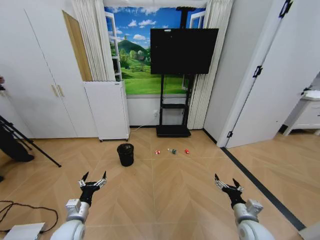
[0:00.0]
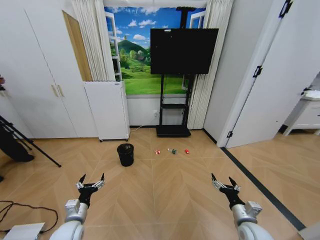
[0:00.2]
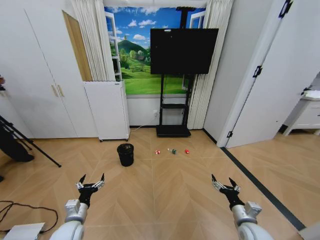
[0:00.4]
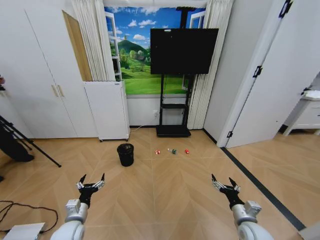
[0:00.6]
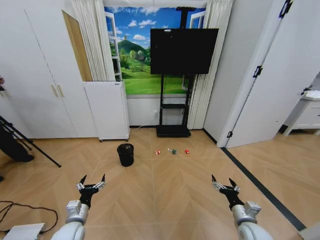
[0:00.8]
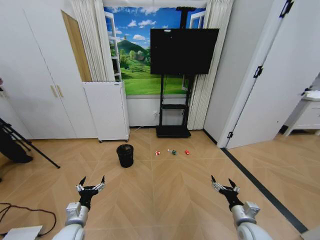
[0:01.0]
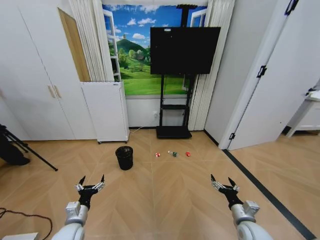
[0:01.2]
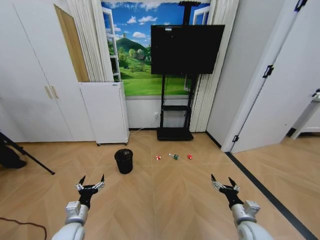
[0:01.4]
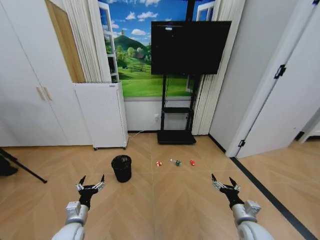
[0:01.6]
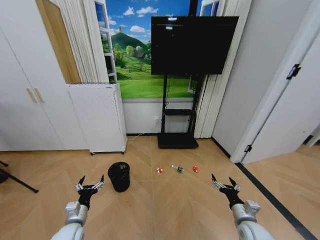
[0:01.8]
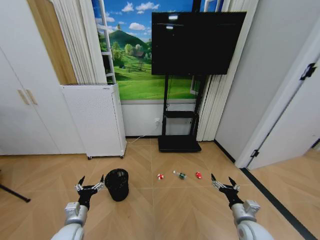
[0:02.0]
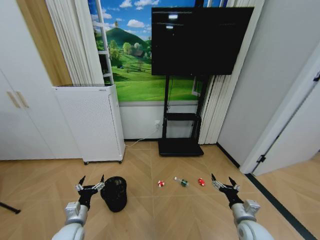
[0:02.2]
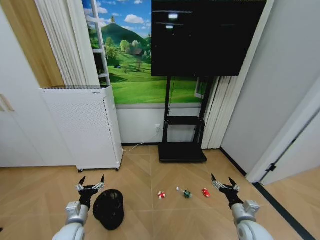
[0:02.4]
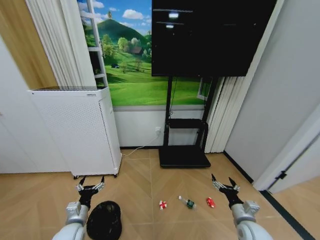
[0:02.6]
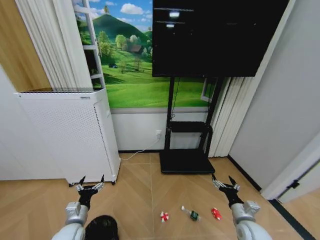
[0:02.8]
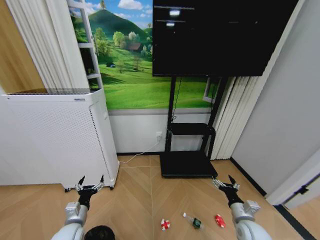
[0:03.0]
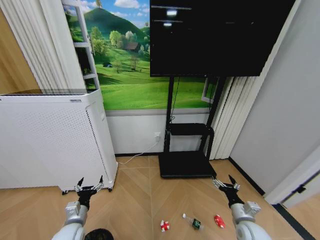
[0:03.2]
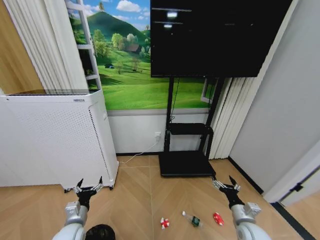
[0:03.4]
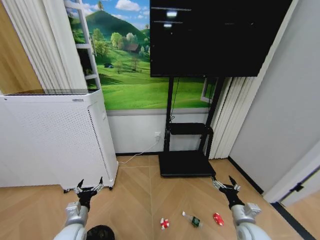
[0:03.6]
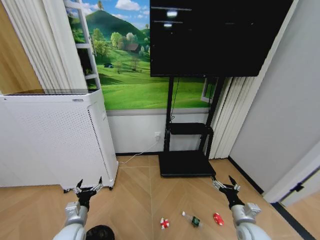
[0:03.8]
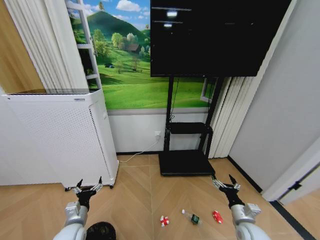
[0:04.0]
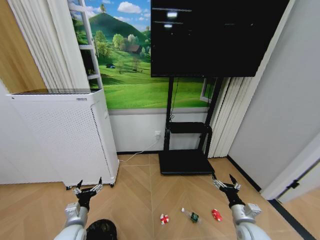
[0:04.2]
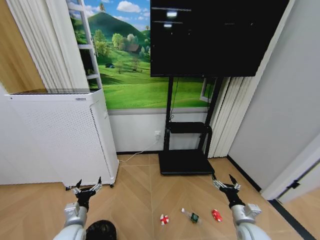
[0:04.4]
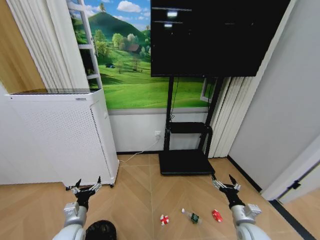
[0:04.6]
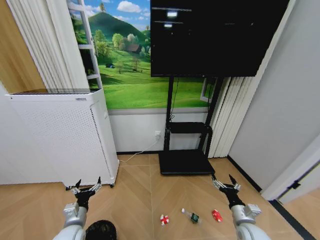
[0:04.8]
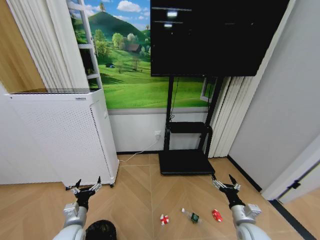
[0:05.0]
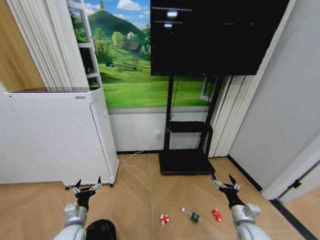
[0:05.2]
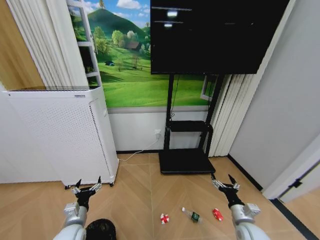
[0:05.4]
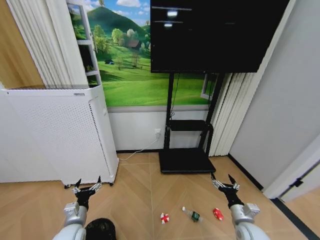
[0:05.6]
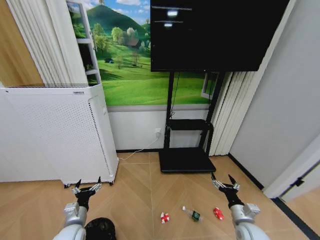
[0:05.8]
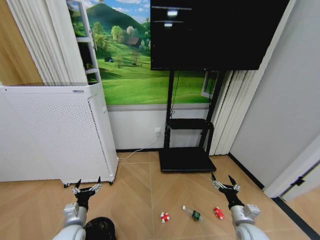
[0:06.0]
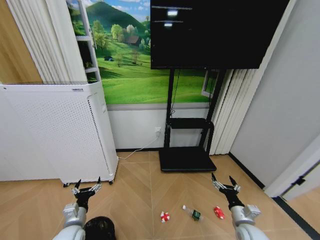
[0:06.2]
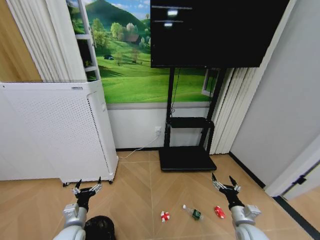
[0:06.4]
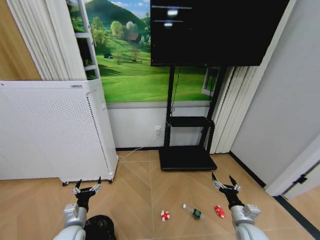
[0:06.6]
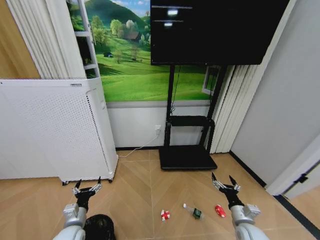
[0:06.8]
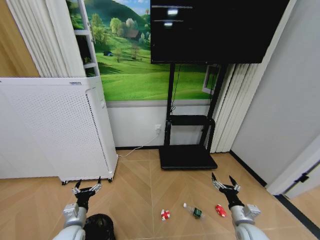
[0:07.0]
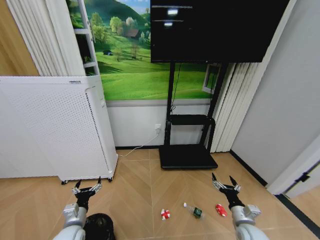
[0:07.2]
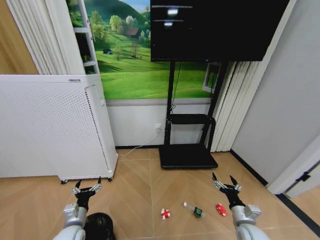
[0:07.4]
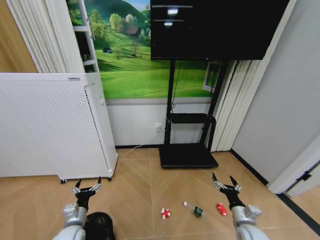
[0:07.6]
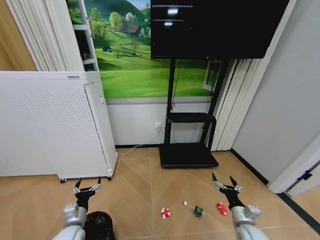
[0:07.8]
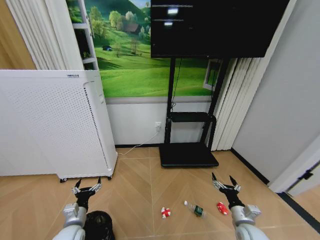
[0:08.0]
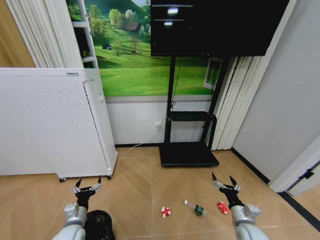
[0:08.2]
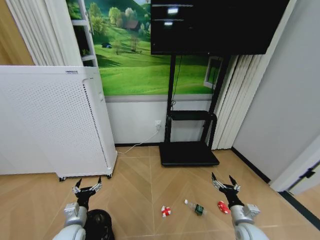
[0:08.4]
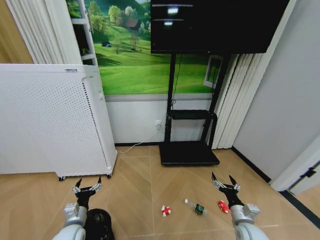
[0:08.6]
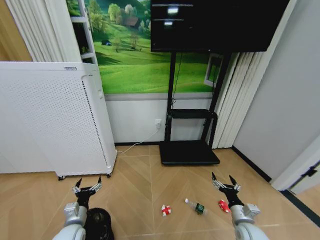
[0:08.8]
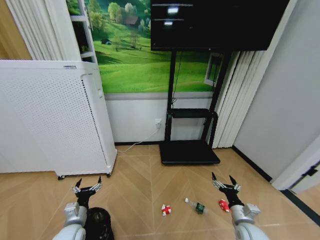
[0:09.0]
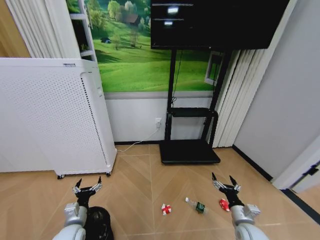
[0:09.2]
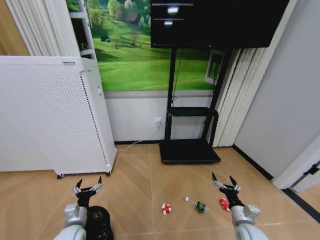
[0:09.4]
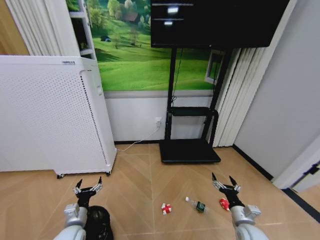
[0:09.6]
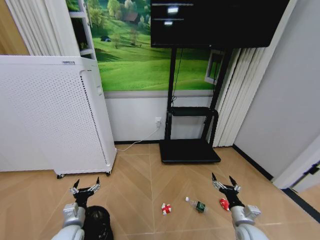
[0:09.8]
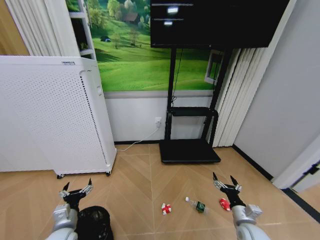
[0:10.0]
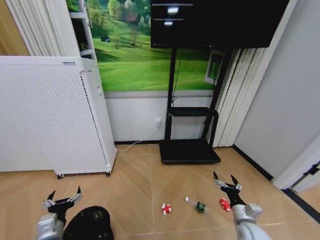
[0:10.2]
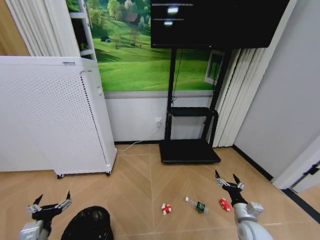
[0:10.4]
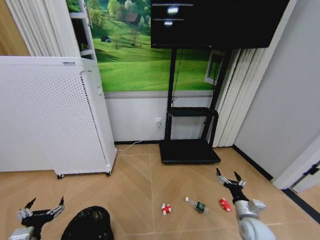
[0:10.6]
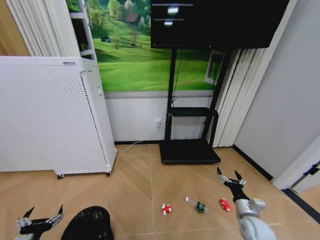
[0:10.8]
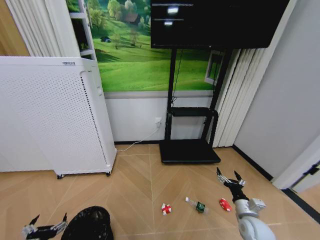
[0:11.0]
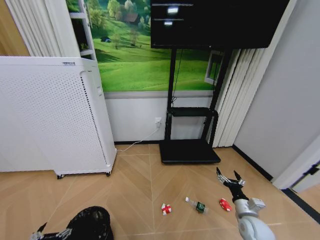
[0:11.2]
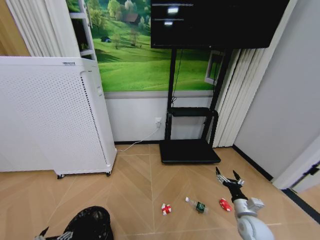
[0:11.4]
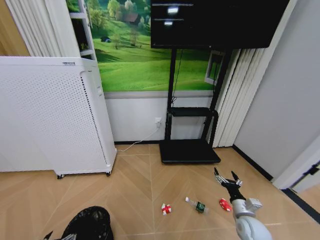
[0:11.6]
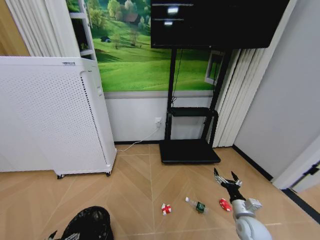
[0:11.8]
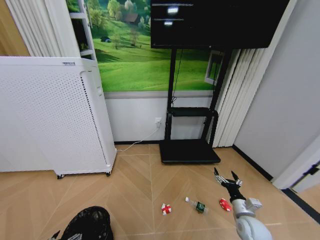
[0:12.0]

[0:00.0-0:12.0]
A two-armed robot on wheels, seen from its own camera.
Task of the whole recording: Pick up the trash bin and place the garbage on the floor into it.
0:03.0 to 0:04.4: The grippers stay close to where they were, moving slightly.
0:04.4 to 0:09.0: Both grippers stay about where they are.
0:09.0 to 0:10.4: The left gripper is displaced backward and upward by roughly 10 cm.
0:10.4 to 0:12.0: The left gripper moves downward, some 10 cm.

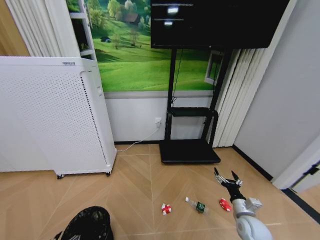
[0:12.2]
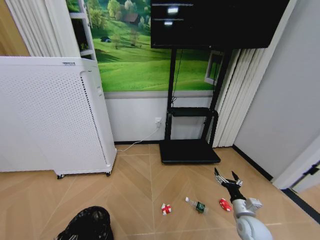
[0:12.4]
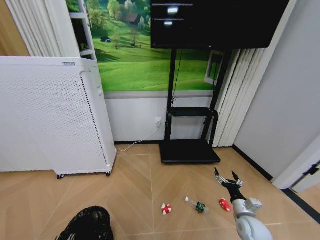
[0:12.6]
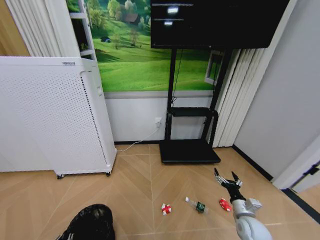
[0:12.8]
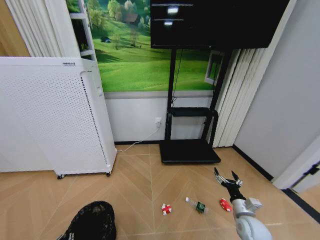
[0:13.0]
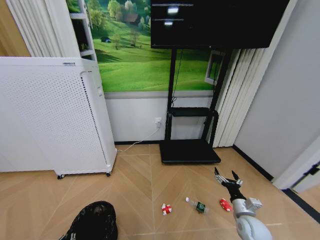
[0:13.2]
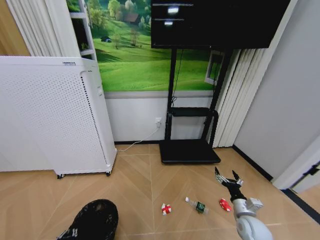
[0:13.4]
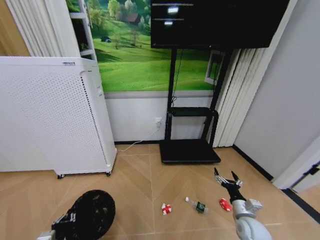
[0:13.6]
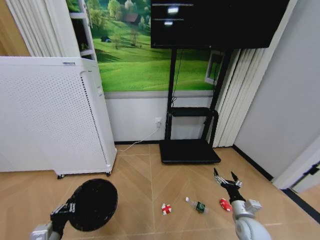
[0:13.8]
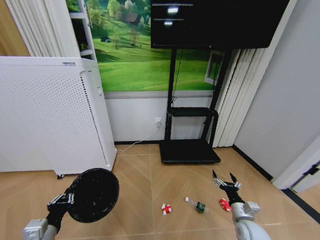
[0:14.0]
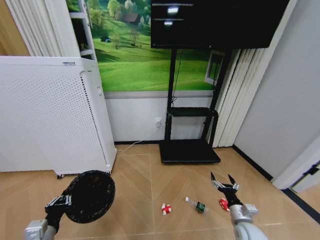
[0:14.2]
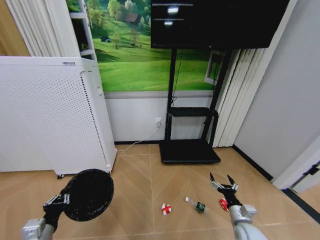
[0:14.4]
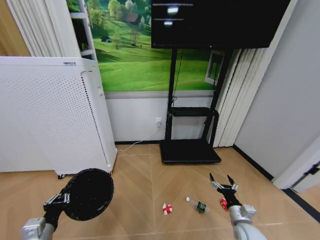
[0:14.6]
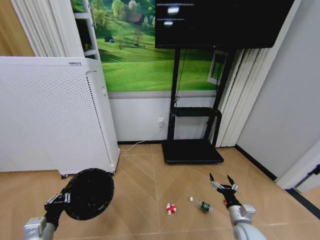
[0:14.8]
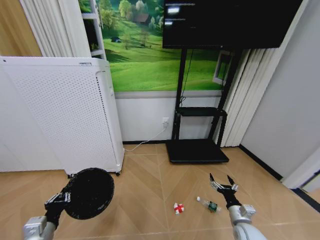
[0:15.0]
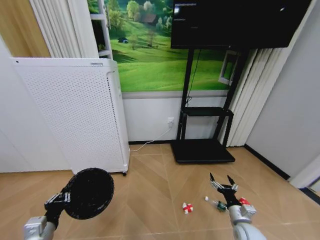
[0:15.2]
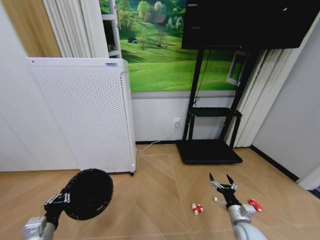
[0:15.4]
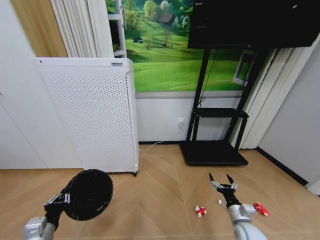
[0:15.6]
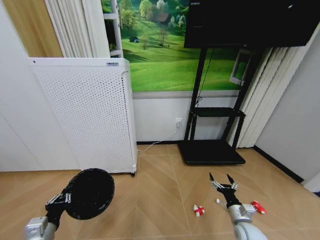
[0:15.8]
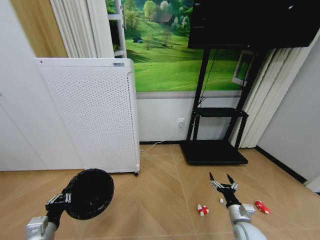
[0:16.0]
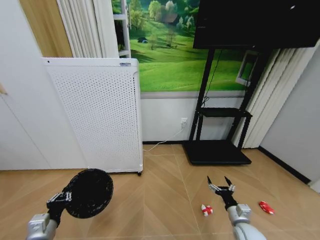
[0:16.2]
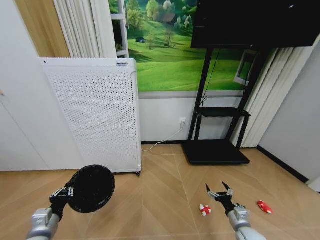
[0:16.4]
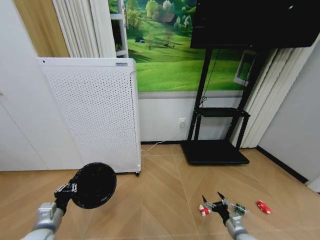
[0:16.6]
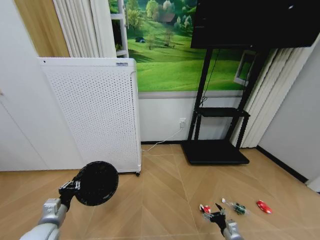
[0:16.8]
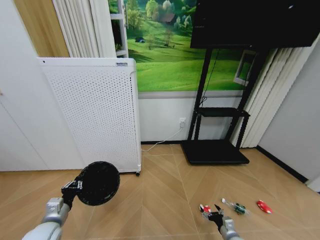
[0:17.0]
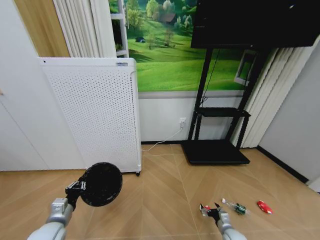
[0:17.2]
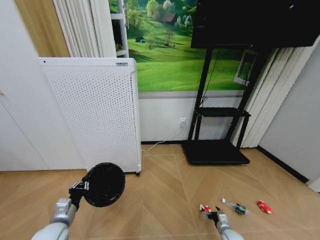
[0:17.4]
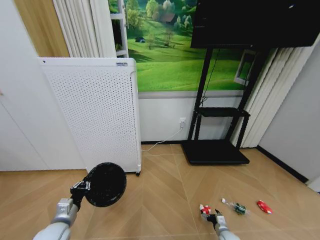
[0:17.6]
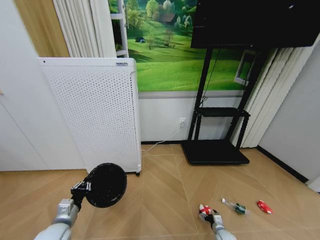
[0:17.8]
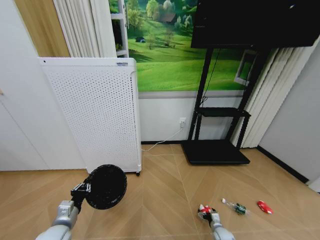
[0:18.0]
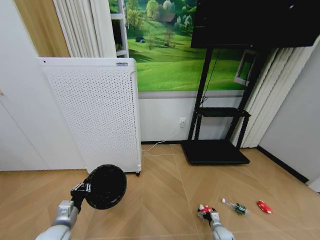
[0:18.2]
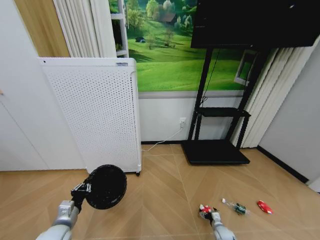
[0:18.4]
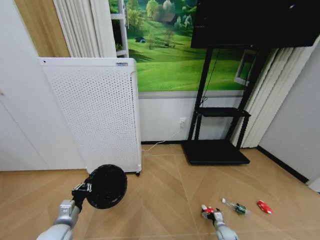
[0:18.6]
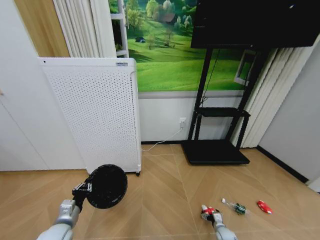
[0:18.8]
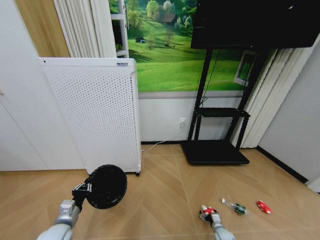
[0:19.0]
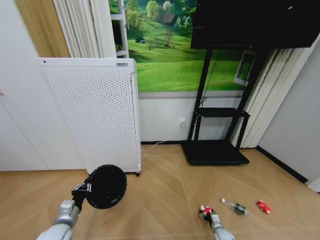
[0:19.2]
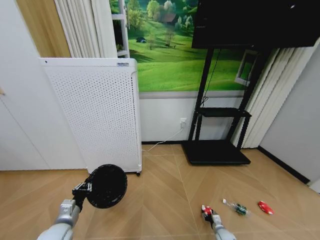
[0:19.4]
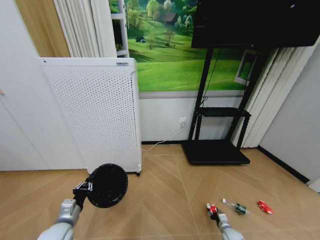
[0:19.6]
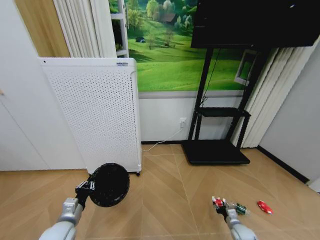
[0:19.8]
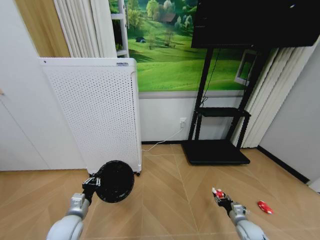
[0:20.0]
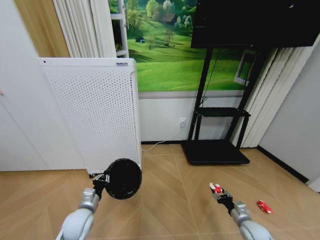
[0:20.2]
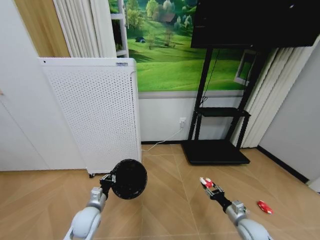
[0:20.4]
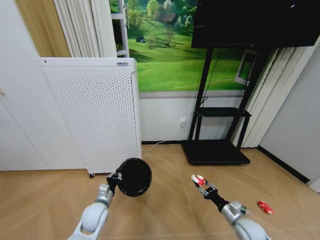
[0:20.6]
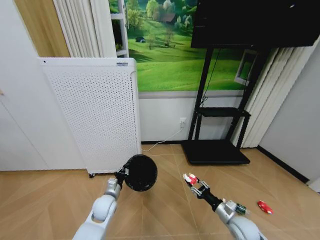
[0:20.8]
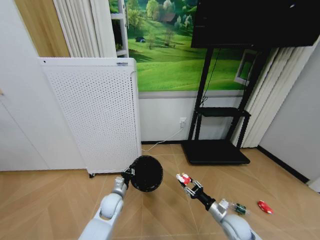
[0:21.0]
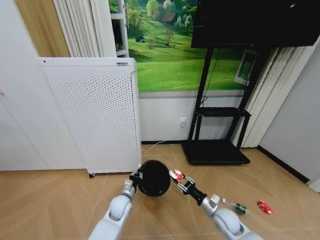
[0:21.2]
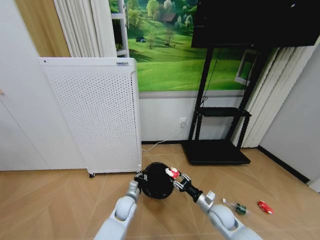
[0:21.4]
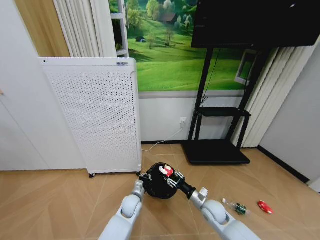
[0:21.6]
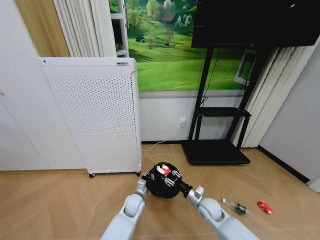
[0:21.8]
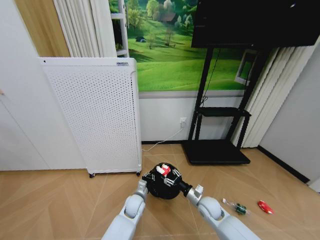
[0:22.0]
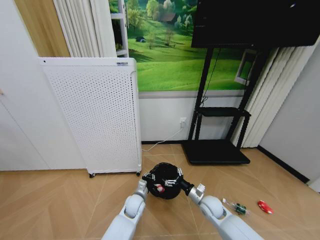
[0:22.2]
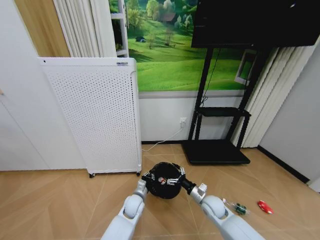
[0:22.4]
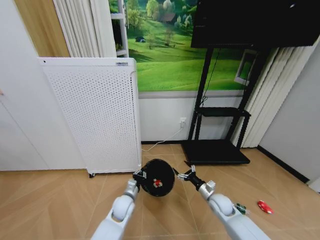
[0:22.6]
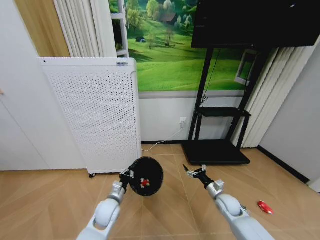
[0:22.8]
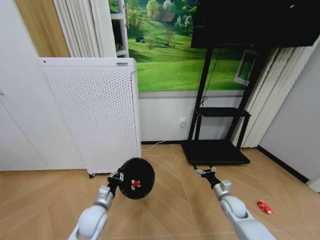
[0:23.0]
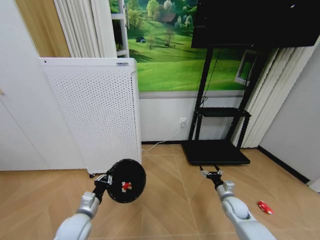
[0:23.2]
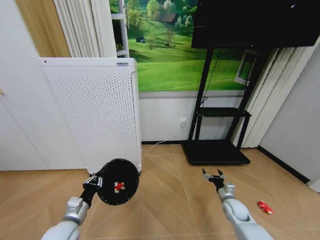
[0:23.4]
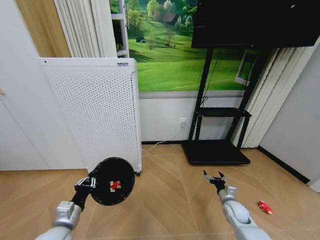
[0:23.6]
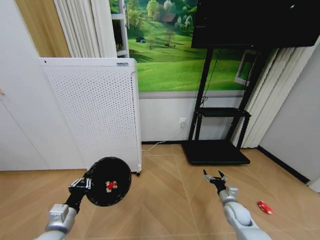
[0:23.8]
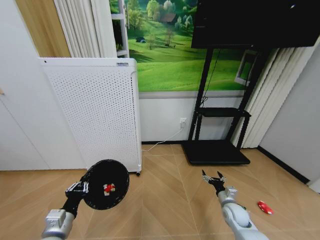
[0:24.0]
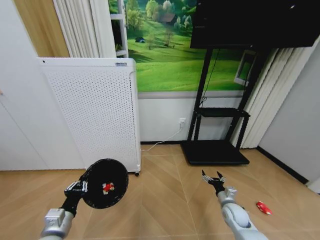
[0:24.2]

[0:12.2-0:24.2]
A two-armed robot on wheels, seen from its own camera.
Task of the whole recording: Pick up the trash bin and place the garbage on the floor into it.
0:12.2 to 0:13.8: The left gripper moves upward, some 10 cm, and closes up.
0:15.2 to 0:16.6: The right gripper ends up some 5 cm from where it was.
0:16.6 to 0:18.2: The right gripper heads downward and forward, covering approximately 20 cm.
0:18.2 to 0:19.8: The right gripper is displaced to the right and upward by approximately 10 cm, and closes.
0:19.8 to 0:21.2: The right gripper travels upward and to the left by some 20 cm. Meanwhile the left gripper goes roughly 25 cm to the right, forward and downward.
0:21.2 to 0:22.6: The right gripper travels forward by some 5 cm, and opens.
0:22.6 to 0:24.2: The left gripper shifts some 25 cm to the left, backward and upward, while the right gripper heads to the right, covering approximately 5 cm.
